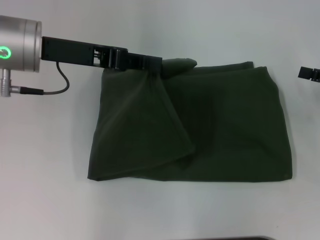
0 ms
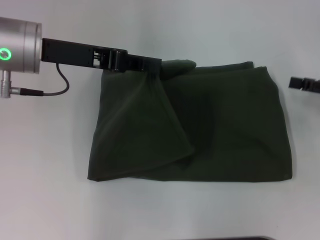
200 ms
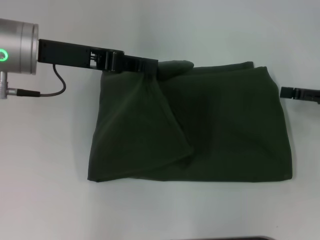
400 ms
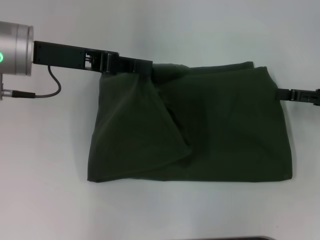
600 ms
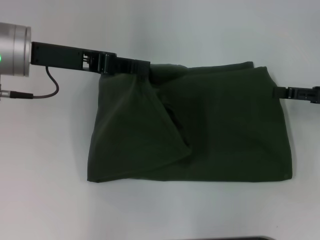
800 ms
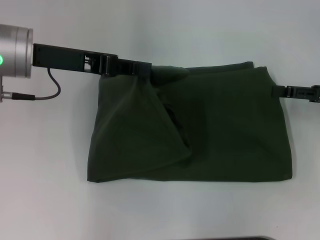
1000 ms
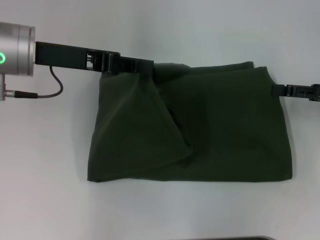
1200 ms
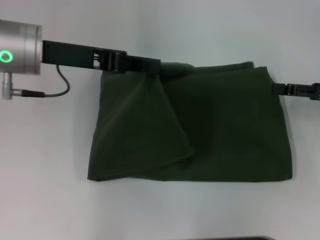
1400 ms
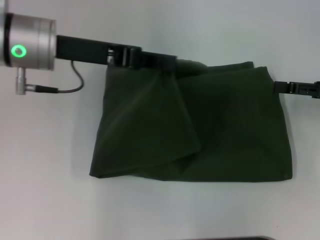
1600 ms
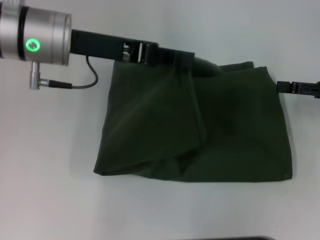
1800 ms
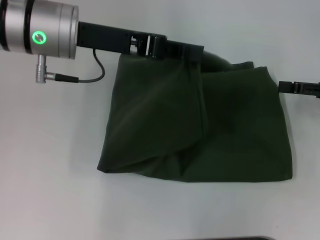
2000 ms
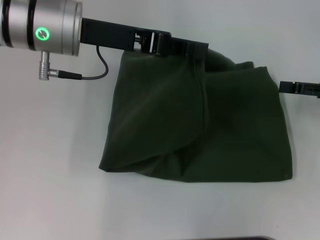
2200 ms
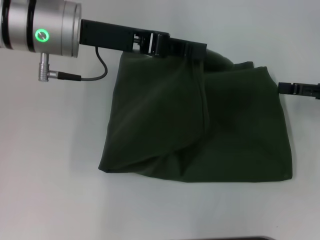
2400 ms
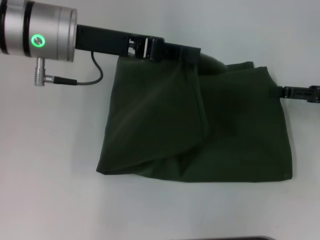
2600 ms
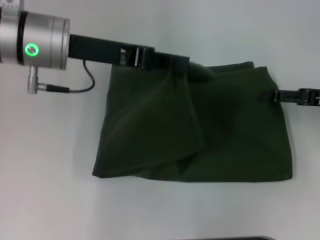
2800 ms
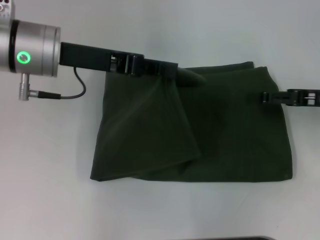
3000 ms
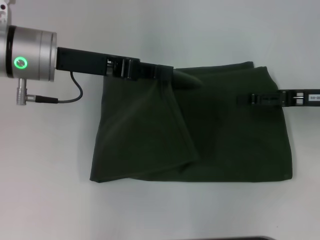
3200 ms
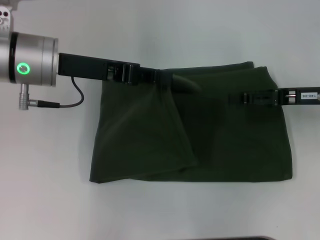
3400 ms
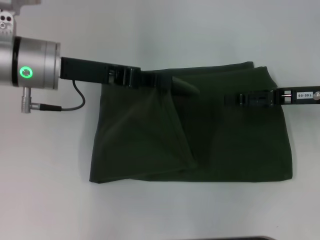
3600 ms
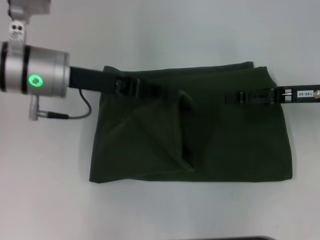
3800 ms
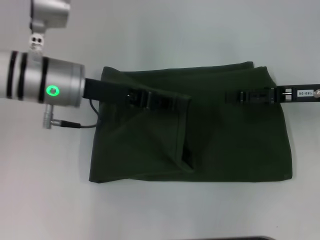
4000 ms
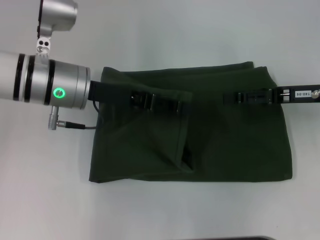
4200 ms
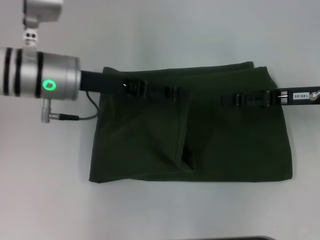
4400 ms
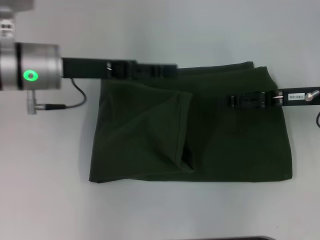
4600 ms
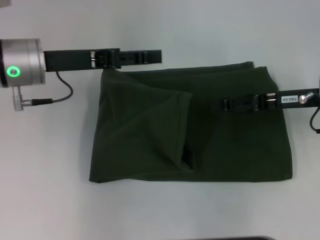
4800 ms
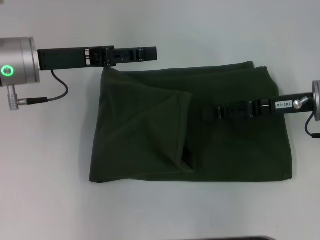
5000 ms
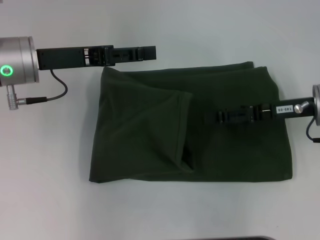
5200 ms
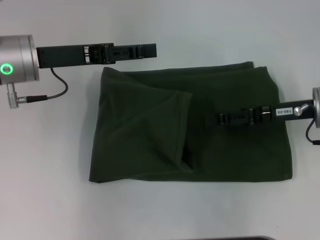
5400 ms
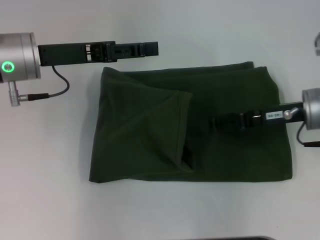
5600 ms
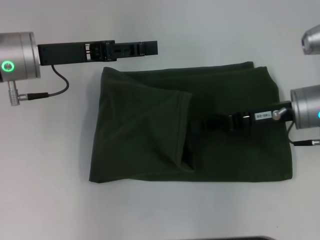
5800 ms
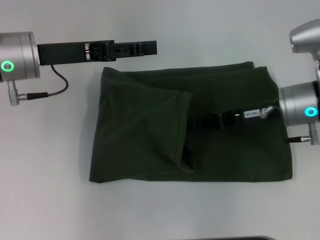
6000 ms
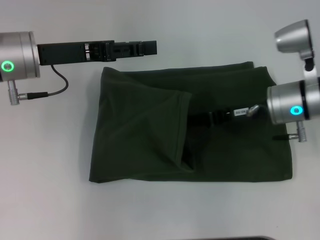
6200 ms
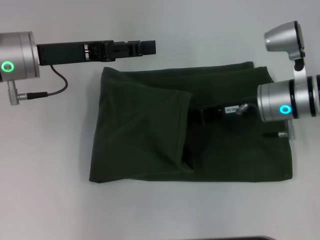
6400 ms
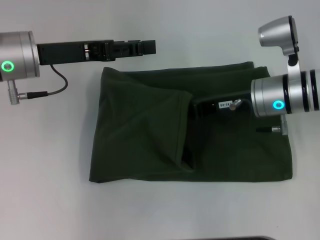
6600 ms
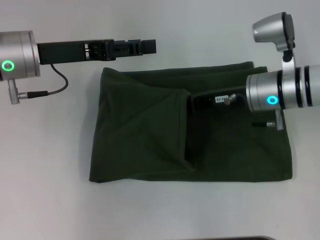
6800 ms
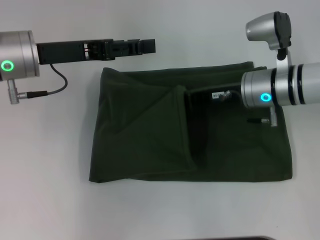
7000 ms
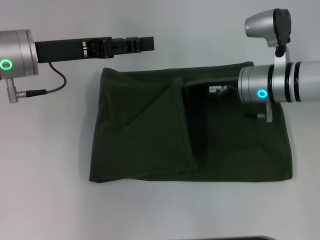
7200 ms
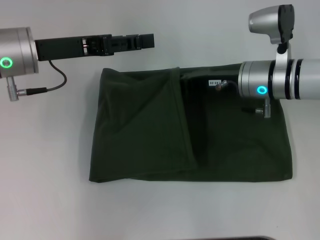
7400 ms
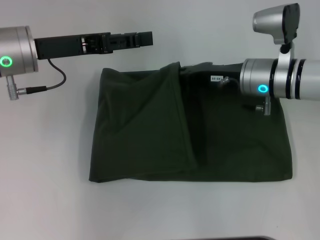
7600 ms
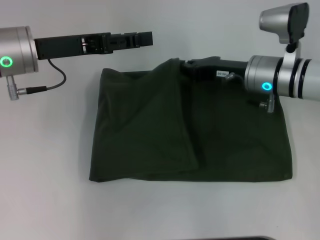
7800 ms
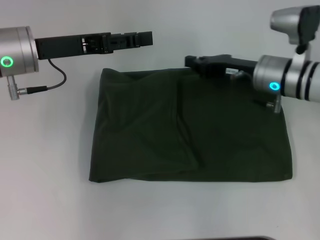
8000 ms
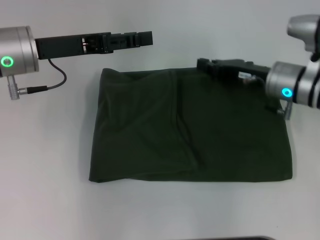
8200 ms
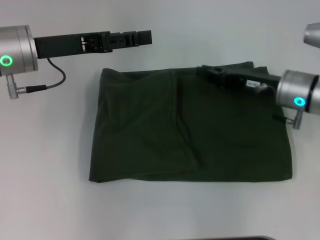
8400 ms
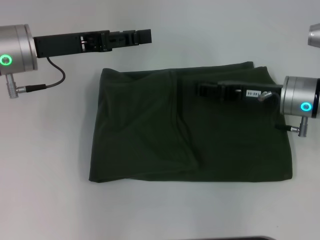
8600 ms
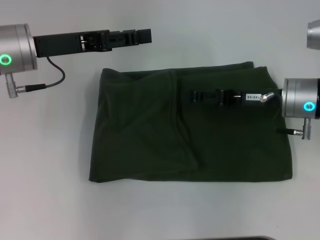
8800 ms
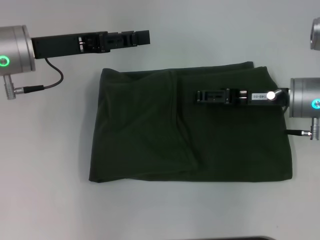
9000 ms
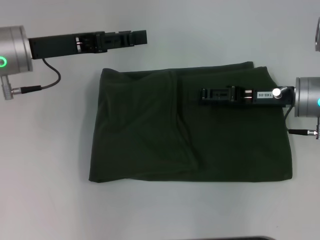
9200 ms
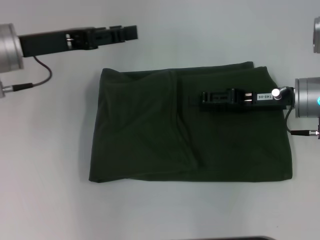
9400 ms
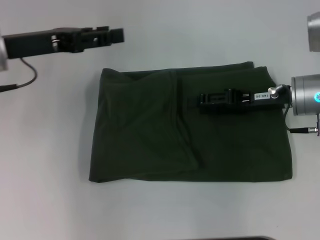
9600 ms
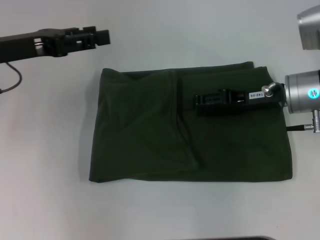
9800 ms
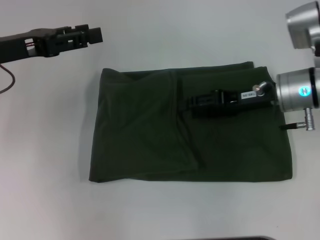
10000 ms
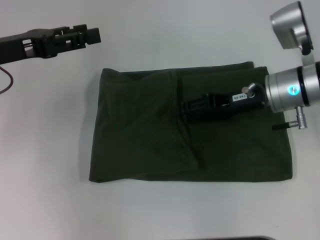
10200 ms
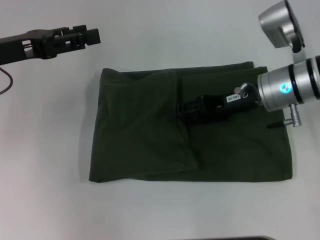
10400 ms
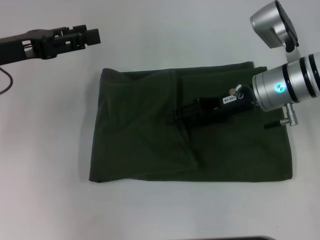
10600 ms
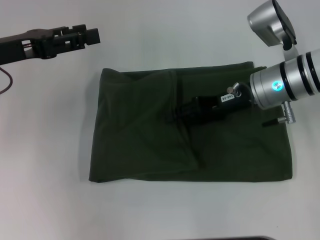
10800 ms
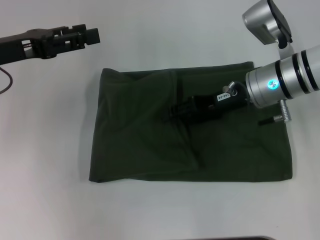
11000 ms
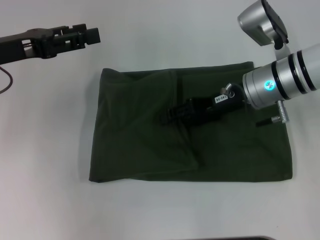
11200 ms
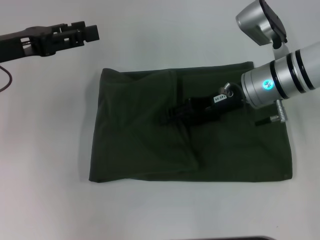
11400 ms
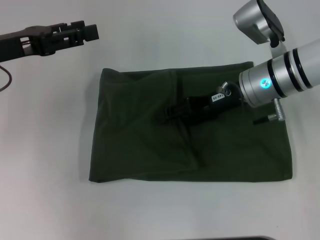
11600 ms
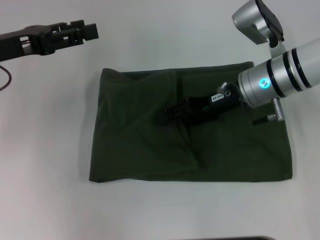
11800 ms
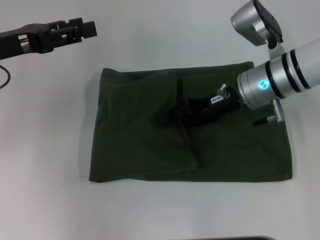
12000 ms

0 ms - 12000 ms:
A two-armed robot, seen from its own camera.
Step, 0 ms - 5200 ms: Fold the clothes with your left hand.
0 ms - 1600 ms: There are only small adjustments of the grippers.
1600 ms - 3000 ms: The grippers move only a little.
3000 ms - 4400 ms: There are only small adjustments of the grippers.
4400 ms - 6000 ms: The left gripper opens; the right gripper shifts about 5 cm to the left, and closes.
6000 ms - 7600 ms: The right gripper shifts by roughly 5 cm.
7600 ms - 9000 ms: The right gripper is displaced to the right by approximately 5 cm, and opens its fingers.
9000 ms - 10400 ms: The left gripper shifts roughly 5 cm to the left.
10400 ms - 12000 ms: The grippers make only small movements.

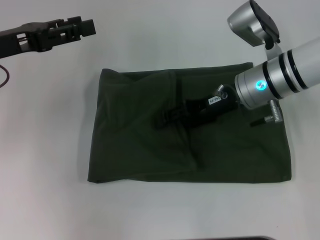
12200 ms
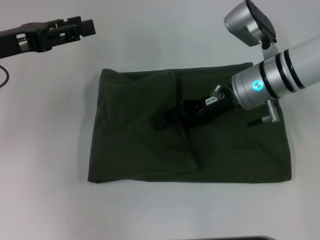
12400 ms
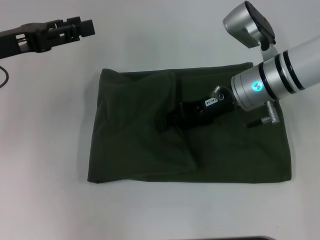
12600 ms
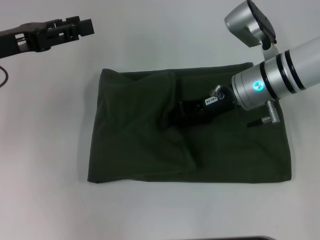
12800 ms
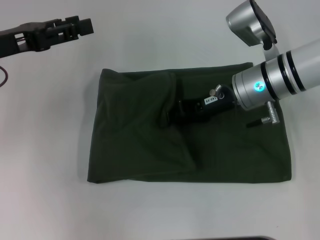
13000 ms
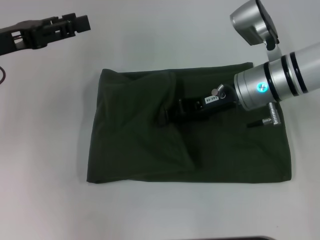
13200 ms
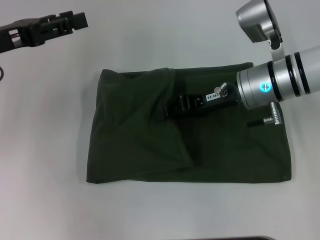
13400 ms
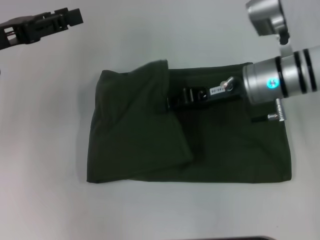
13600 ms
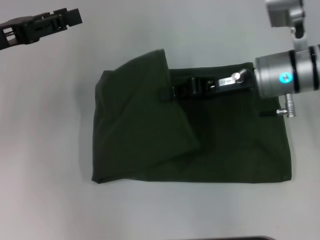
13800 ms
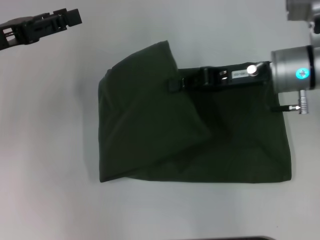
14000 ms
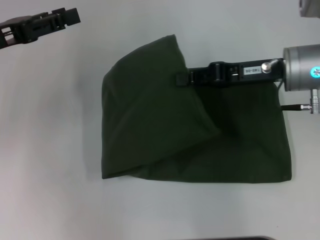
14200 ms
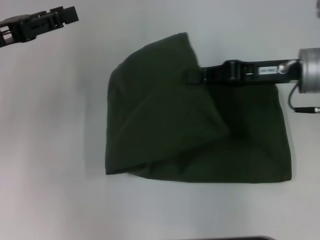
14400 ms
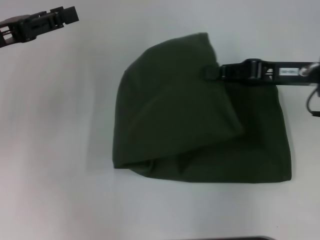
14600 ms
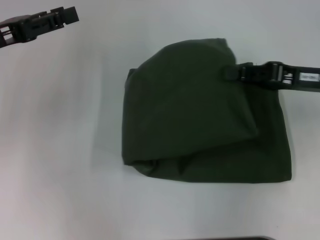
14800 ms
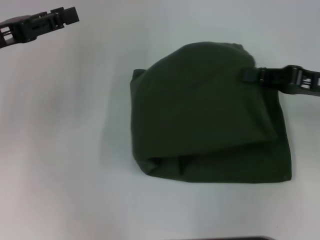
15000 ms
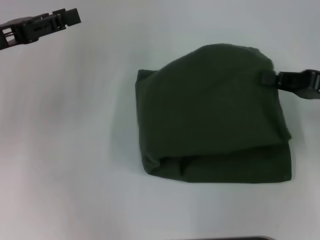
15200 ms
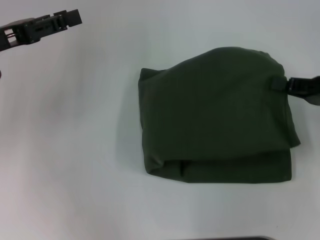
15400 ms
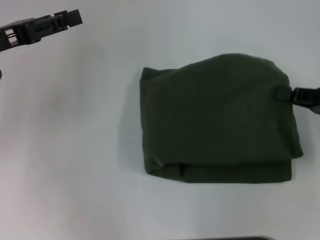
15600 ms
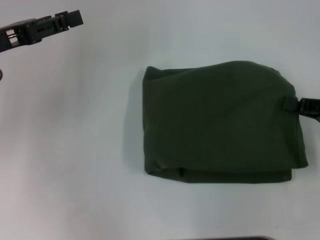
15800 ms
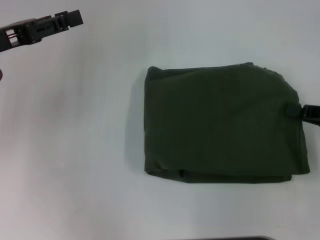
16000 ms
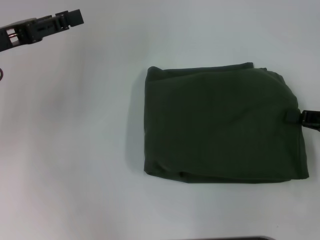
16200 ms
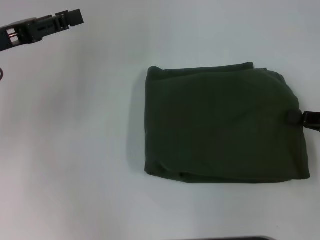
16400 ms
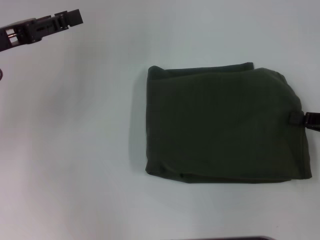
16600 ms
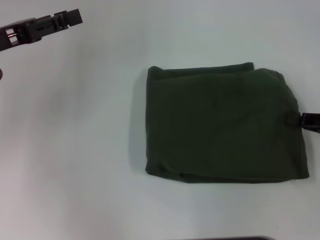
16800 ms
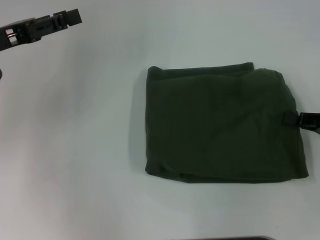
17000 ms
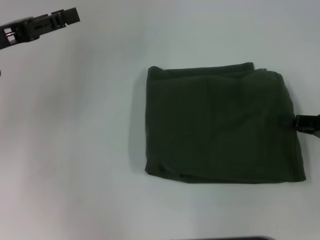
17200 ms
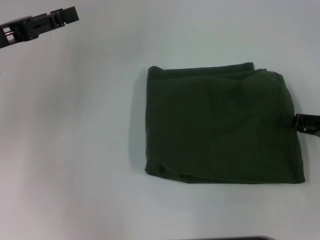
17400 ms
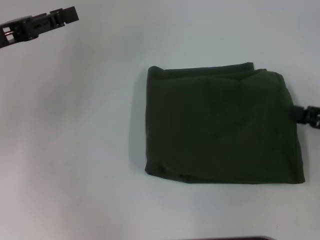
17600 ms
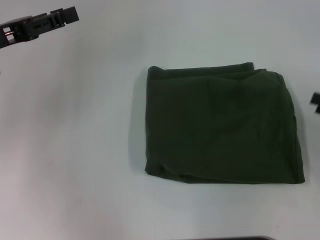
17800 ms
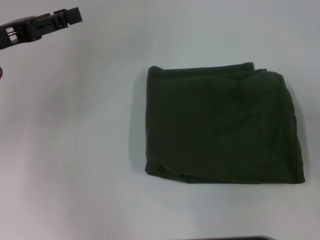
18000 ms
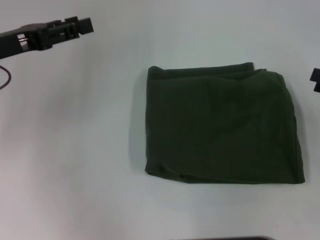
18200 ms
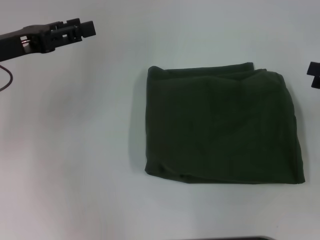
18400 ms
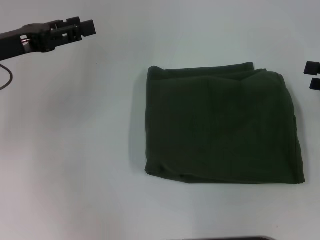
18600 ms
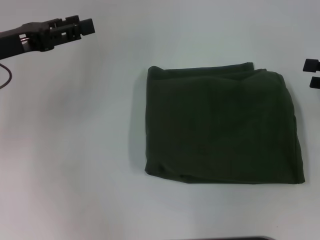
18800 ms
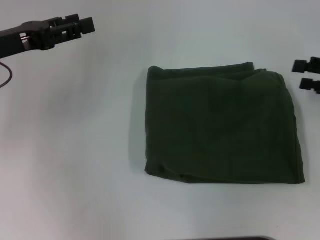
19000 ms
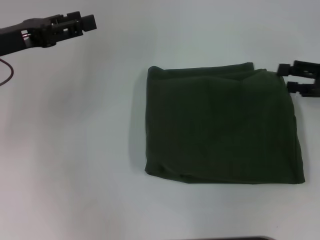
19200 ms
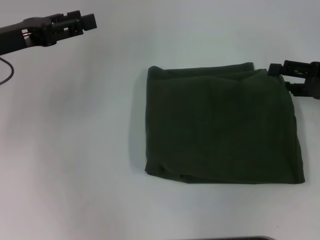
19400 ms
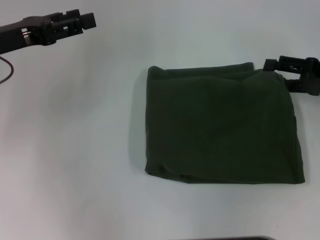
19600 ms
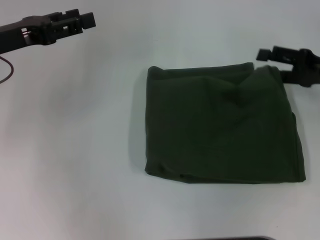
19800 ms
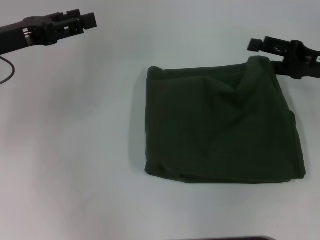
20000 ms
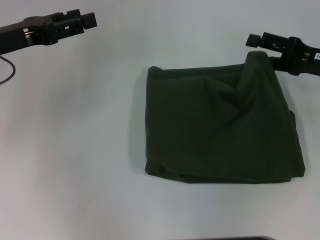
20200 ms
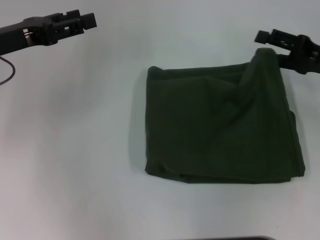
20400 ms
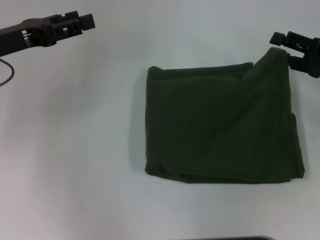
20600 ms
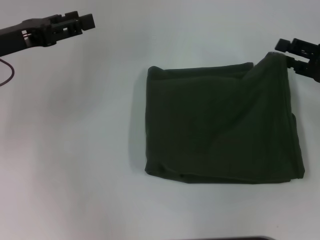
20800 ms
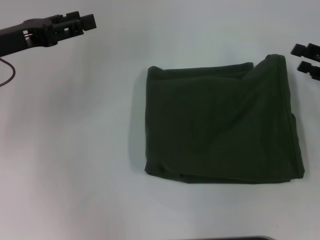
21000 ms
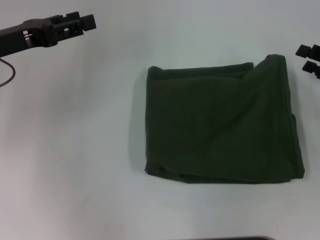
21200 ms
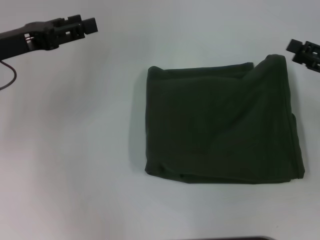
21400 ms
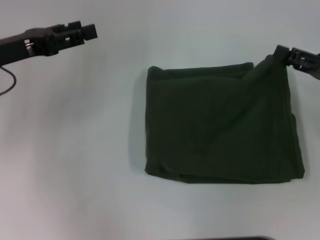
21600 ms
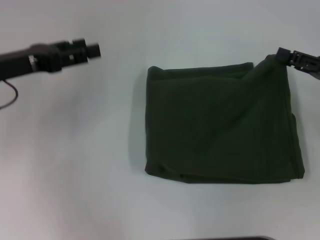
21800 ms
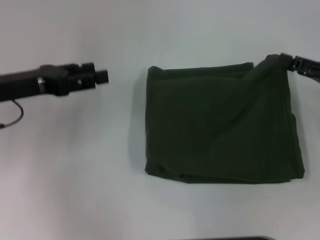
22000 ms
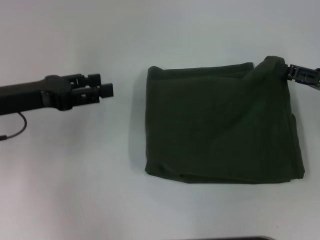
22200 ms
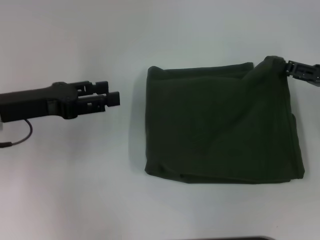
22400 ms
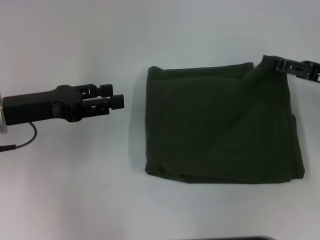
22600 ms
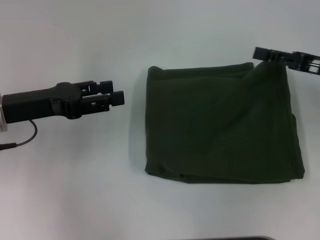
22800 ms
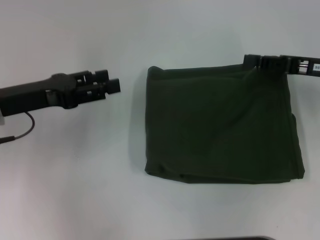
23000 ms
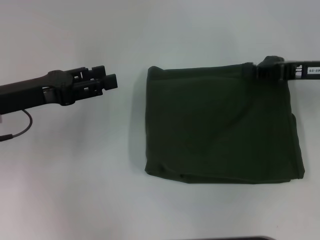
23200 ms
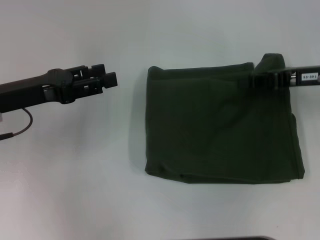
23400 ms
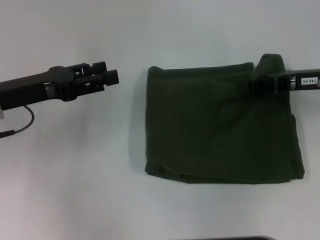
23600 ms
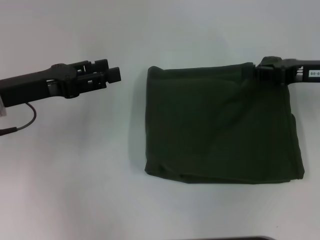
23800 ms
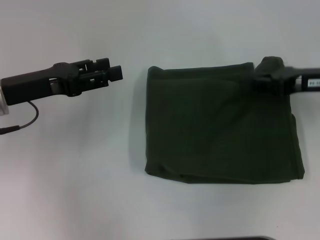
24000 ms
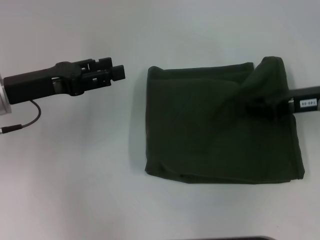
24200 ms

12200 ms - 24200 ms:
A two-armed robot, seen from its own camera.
12200 ms - 13800 ms: The right gripper closes up.
13800 ms - 15200 ms: The right gripper goes some 15 cm to the right and backward.
15200 ms - 16600 ms: The right gripper moves approximately 5 cm.
16600 ms - 18200 ms: The right gripper opens.
18200 ms - 19800 ms: The right gripper shifts roughly 10 cm forward and to the left.
19800 ms - 21200 ms: The right gripper moves about 5 cm.
21200 ms - 22600 ms: The left gripper ends up approximately 5 cm from where it was.
22600 ms - 24200 ms: The right gripper closes its fingers.
